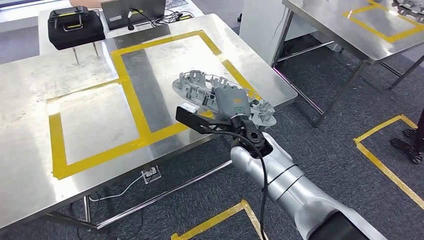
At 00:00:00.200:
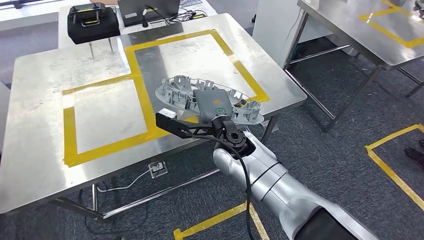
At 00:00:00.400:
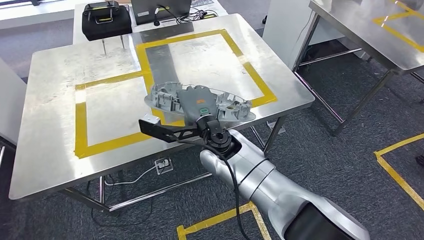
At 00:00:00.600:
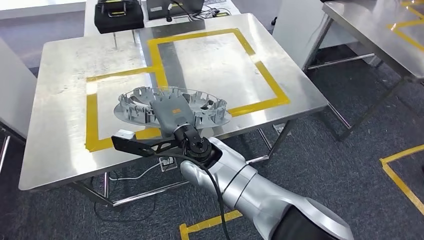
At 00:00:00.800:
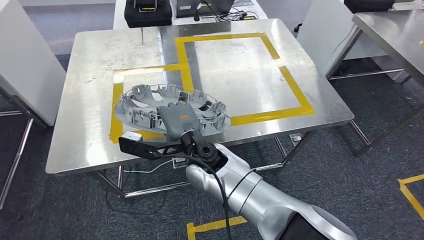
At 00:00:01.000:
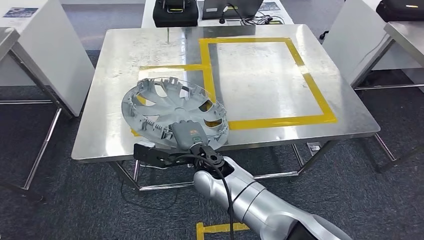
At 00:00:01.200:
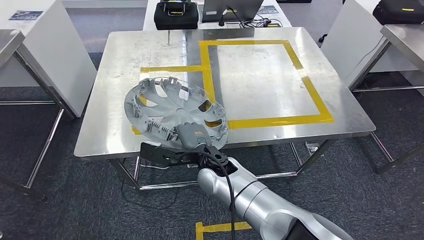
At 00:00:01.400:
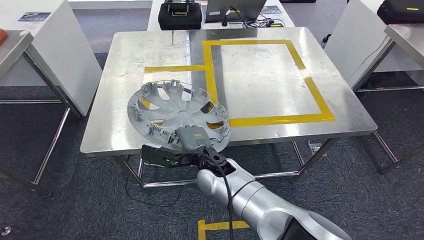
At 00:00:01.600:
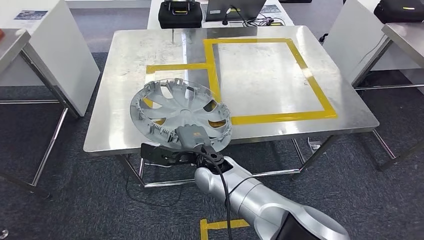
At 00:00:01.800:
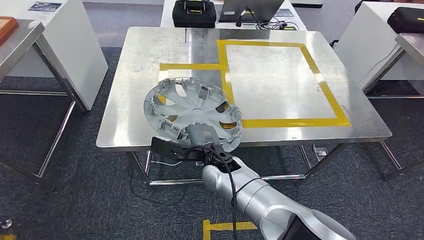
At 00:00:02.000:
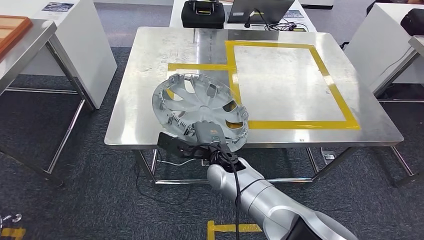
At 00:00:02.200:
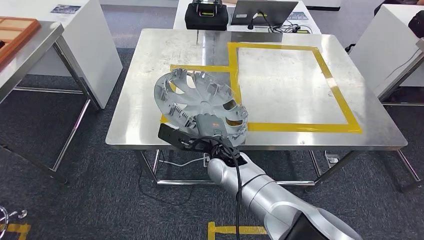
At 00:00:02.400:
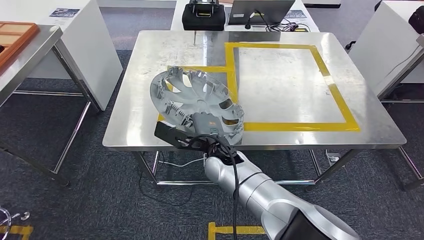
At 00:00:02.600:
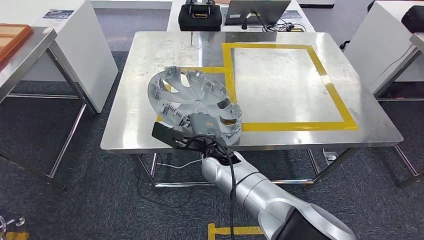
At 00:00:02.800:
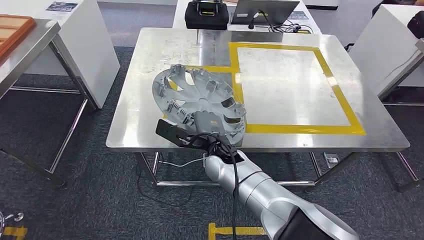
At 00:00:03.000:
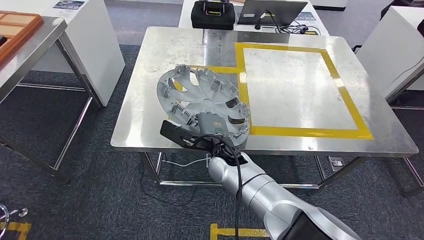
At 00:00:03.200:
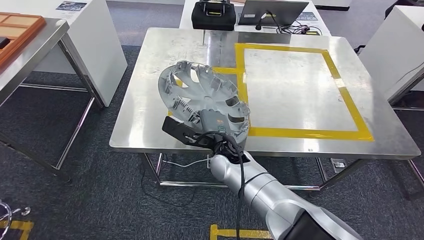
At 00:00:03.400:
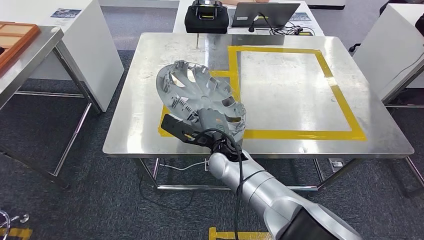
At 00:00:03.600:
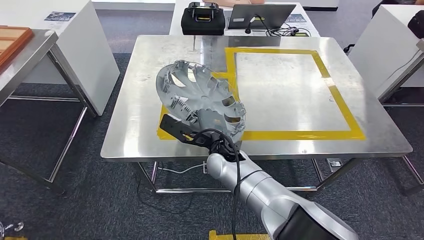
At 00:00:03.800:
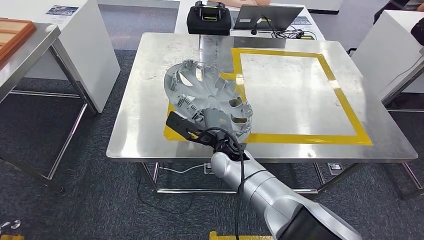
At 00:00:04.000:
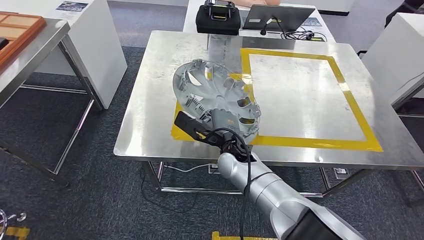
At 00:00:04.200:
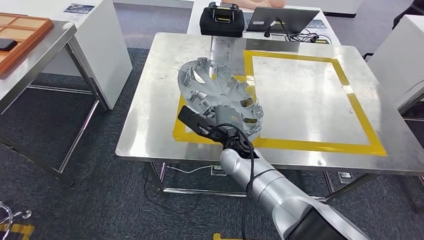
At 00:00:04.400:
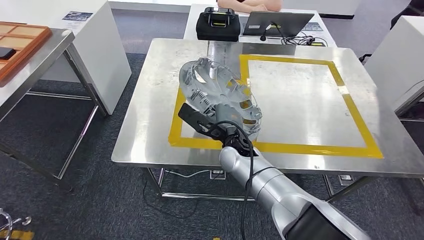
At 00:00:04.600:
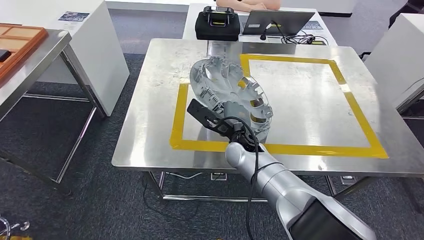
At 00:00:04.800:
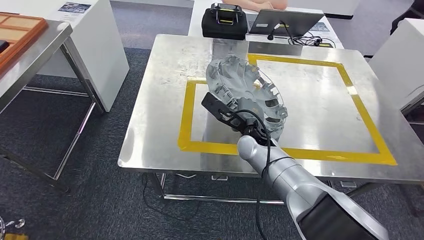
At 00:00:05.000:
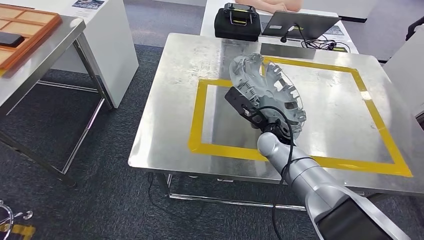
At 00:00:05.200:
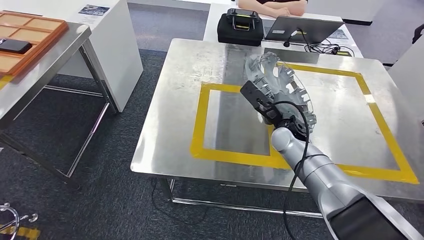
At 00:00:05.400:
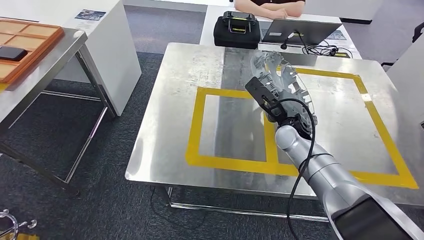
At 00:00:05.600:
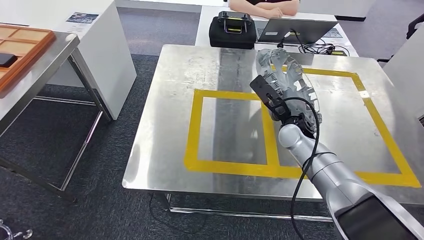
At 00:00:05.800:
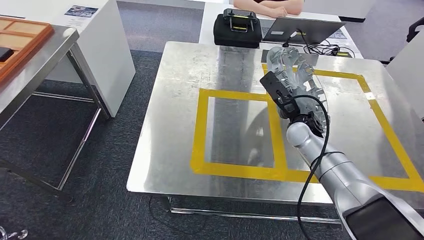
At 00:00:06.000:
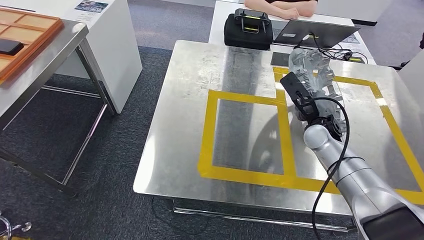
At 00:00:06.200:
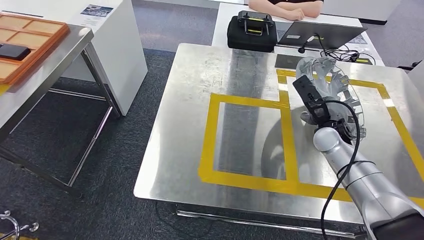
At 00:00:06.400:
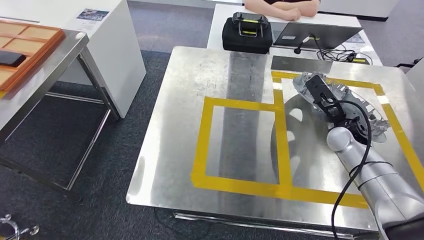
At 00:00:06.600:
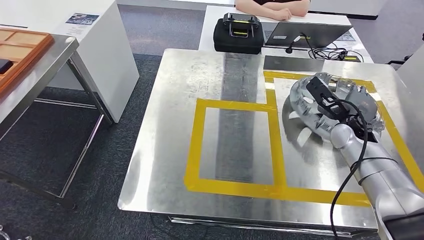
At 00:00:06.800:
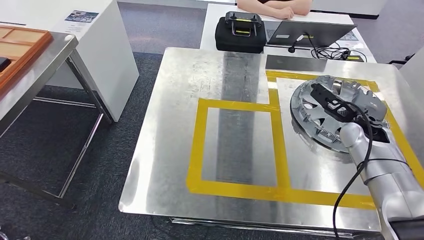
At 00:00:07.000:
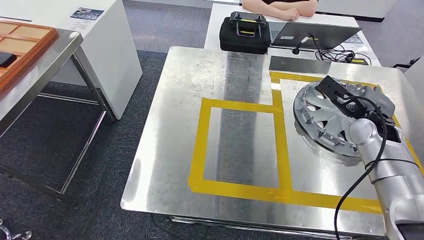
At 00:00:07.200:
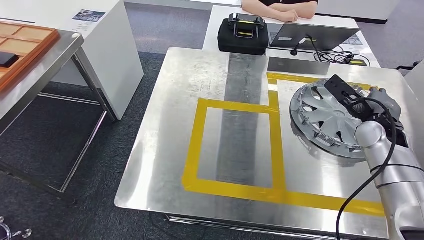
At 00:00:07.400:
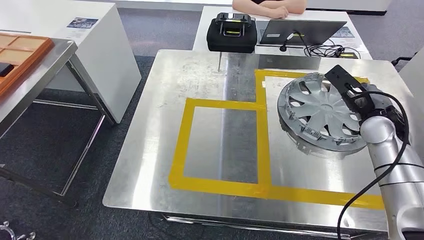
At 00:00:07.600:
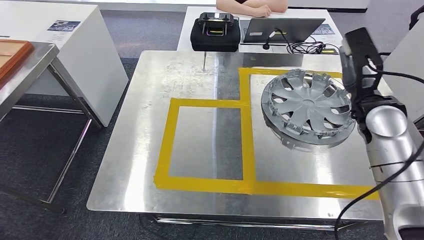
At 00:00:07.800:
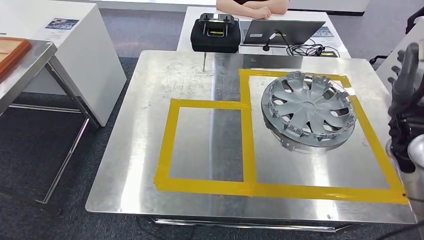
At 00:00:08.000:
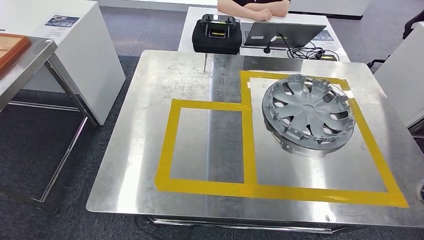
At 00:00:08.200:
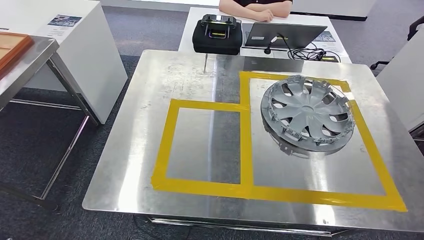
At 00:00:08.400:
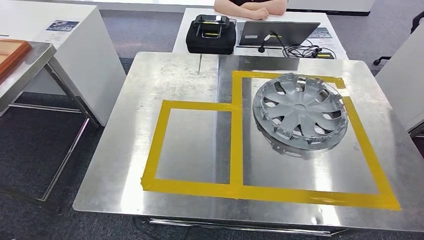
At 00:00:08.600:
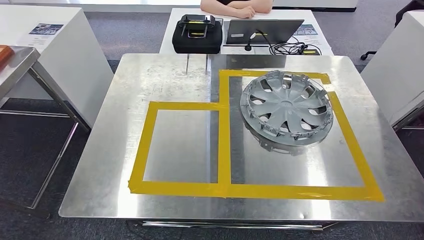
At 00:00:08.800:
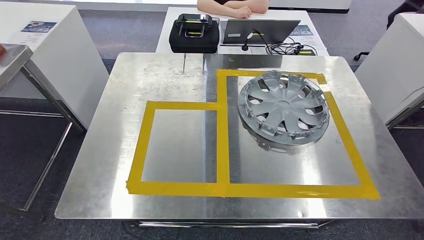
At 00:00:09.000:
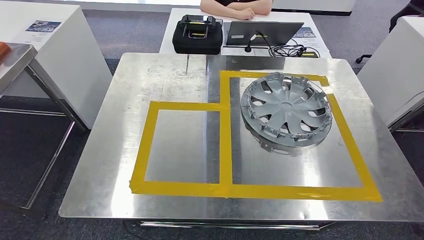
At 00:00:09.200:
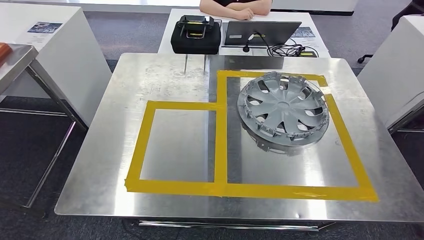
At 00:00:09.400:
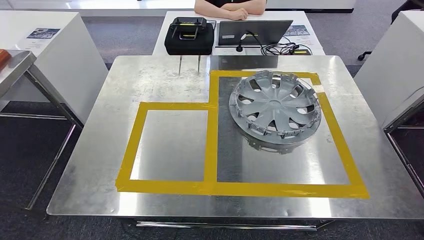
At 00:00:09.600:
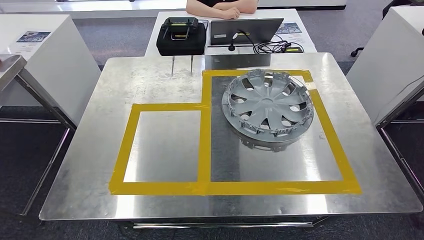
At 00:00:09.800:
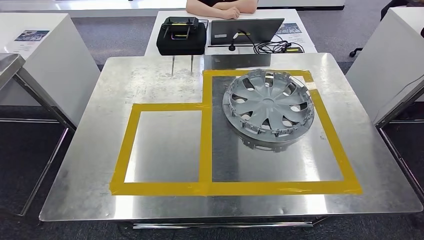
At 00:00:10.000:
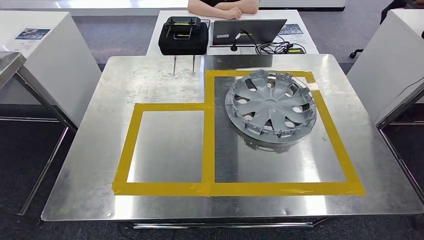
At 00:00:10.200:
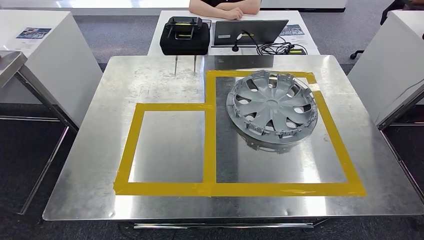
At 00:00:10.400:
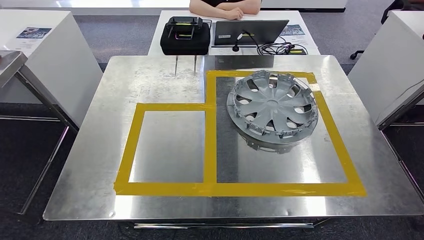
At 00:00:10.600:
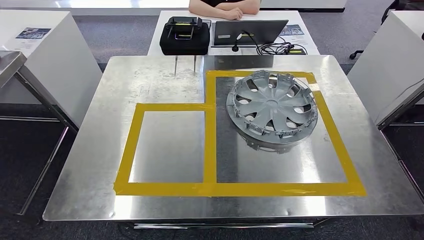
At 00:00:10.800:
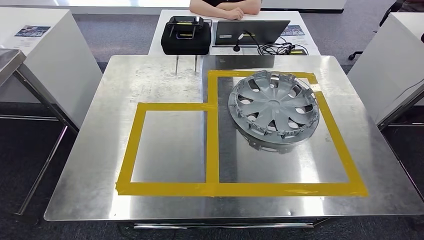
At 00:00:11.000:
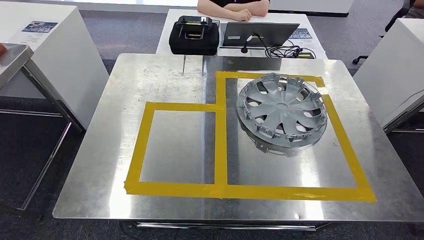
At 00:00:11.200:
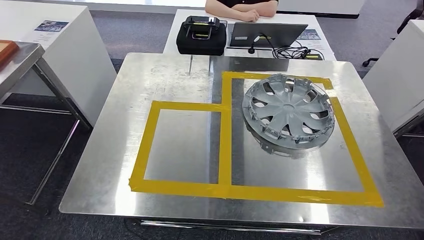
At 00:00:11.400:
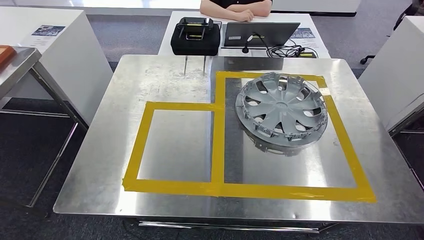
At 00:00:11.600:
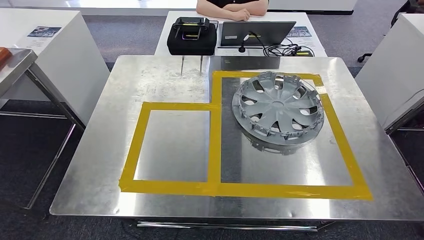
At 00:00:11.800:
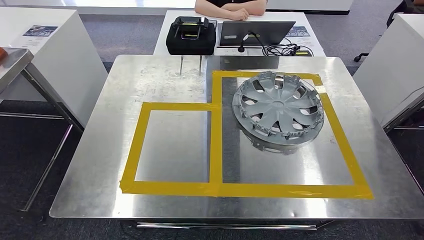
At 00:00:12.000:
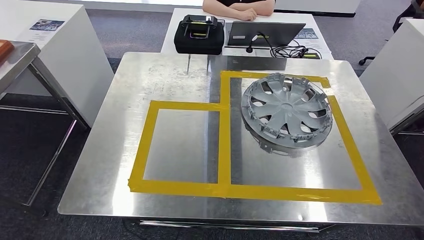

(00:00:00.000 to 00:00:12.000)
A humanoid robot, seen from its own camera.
Step, 00:00:00.000 - 00:00:07.200: Insert the small component into the corresponding slot on the workbench.

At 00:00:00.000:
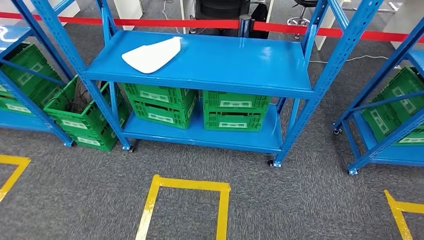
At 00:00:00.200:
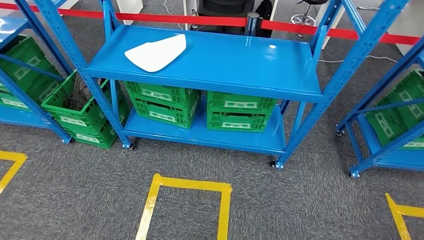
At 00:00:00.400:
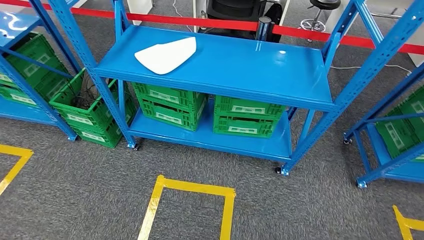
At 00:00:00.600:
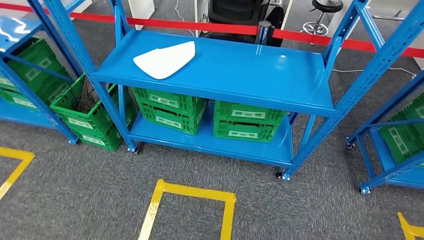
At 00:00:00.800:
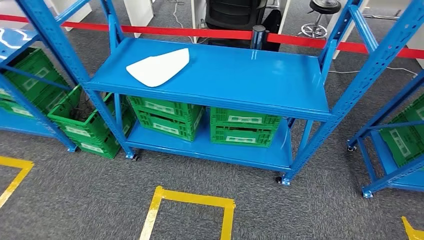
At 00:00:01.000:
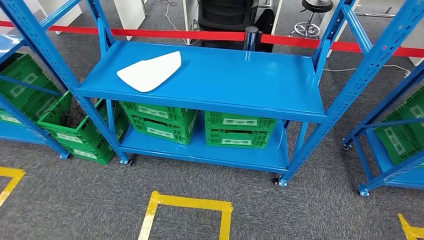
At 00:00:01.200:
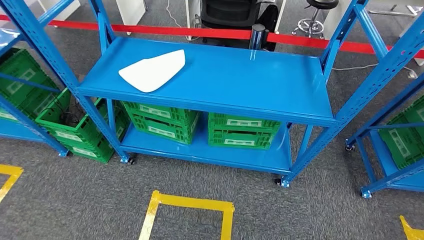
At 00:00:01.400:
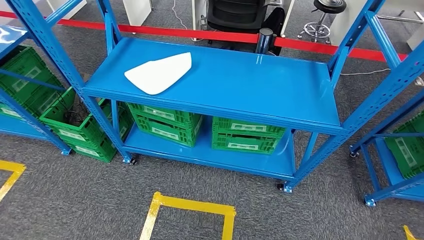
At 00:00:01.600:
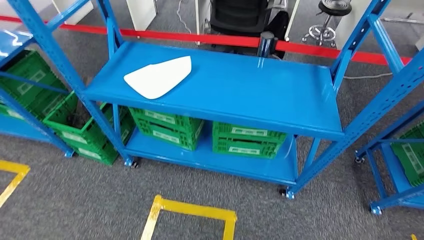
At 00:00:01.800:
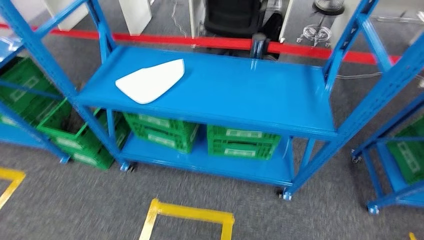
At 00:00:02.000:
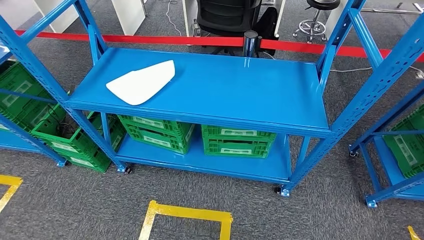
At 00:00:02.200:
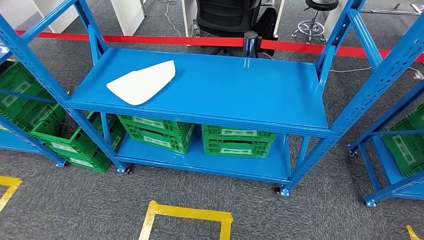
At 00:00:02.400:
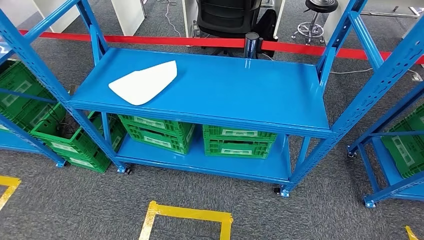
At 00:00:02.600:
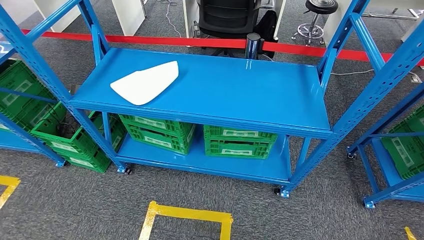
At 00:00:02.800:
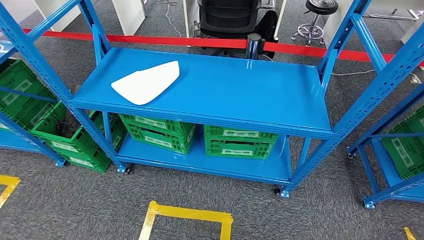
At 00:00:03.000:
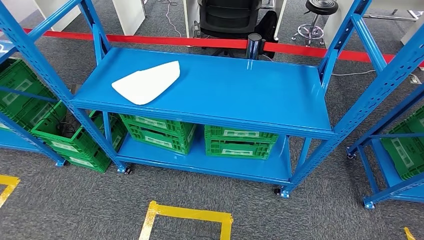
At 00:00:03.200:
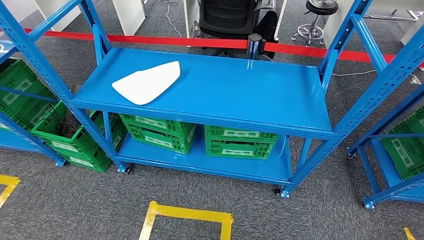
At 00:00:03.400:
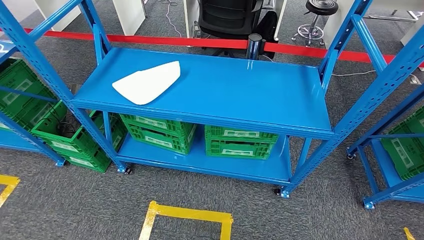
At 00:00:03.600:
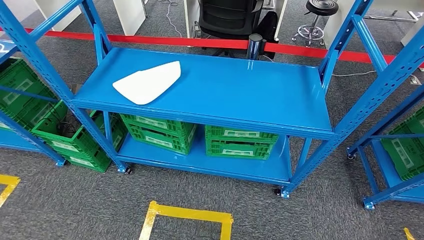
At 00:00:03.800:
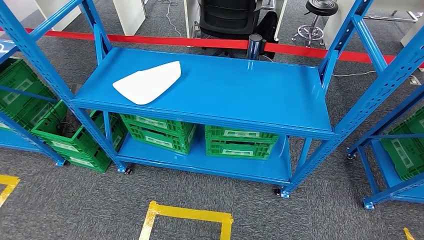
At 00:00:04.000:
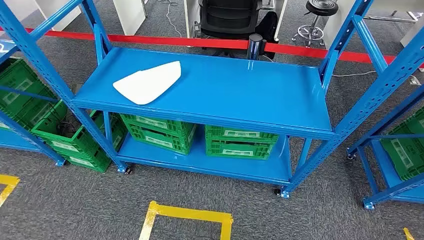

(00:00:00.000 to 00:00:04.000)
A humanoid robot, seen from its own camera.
Step, 00:00:00.000 - 00:00:03.800: Return to the initial position at the workbench.
00:00:02.600 - 00:00:04.000: The right hand ends up approximately 5 cm from where it was.
